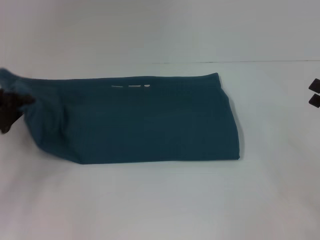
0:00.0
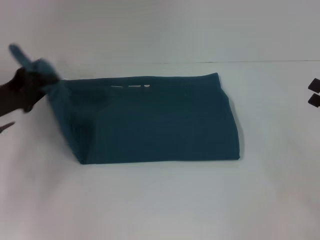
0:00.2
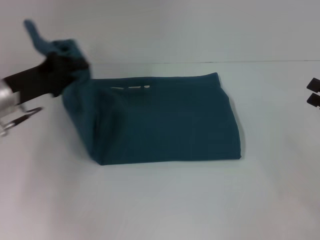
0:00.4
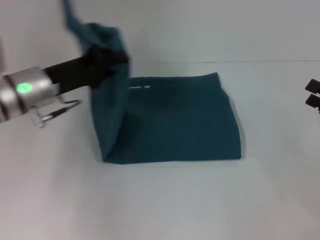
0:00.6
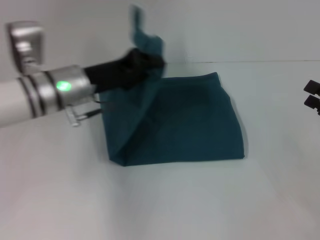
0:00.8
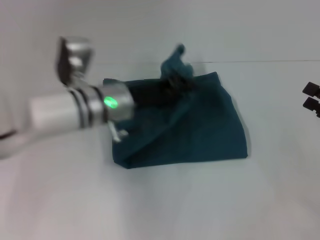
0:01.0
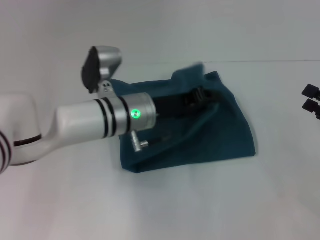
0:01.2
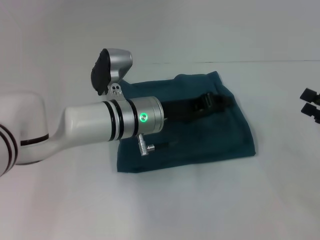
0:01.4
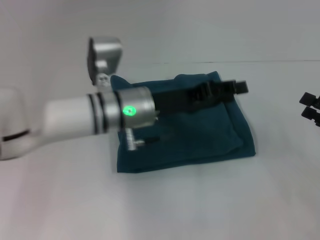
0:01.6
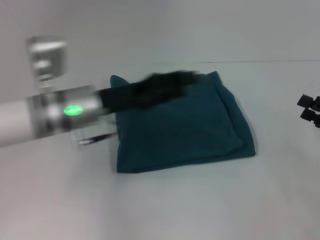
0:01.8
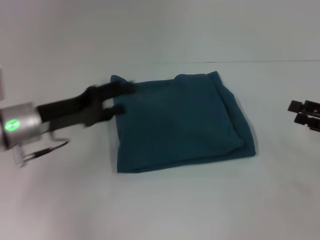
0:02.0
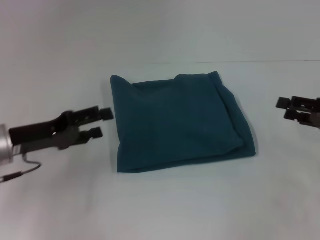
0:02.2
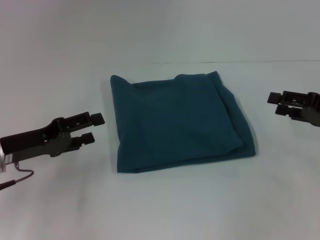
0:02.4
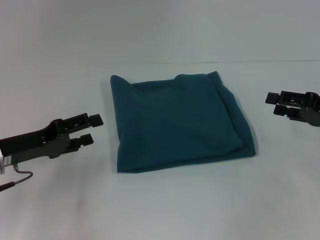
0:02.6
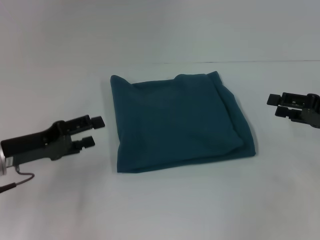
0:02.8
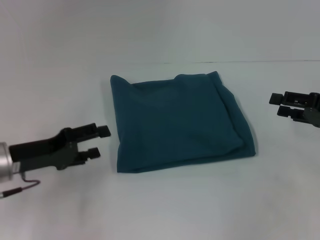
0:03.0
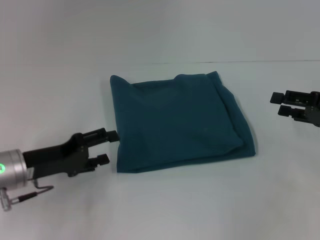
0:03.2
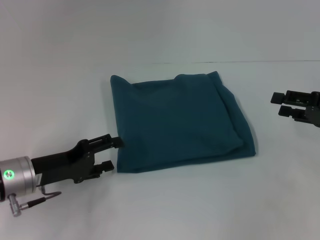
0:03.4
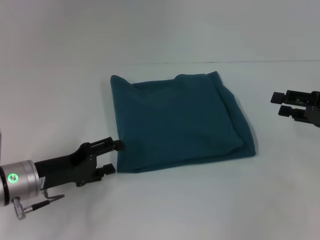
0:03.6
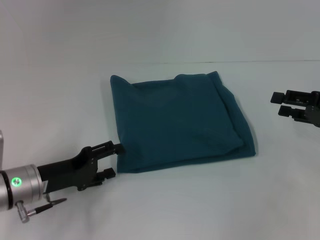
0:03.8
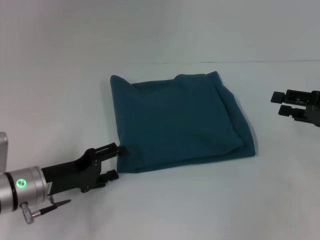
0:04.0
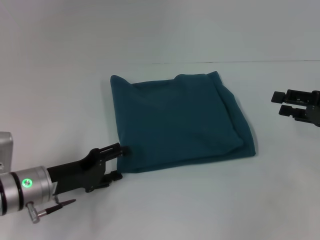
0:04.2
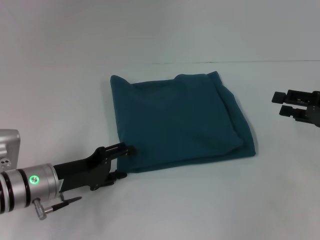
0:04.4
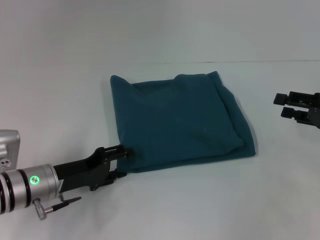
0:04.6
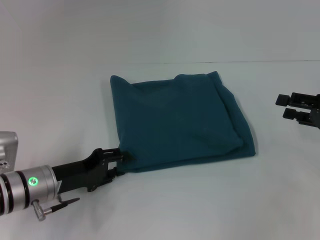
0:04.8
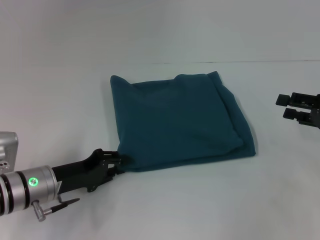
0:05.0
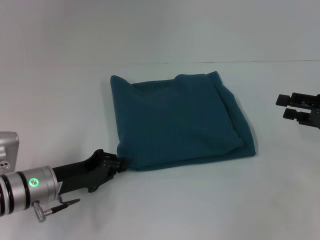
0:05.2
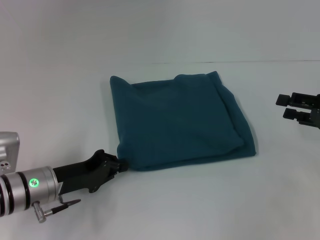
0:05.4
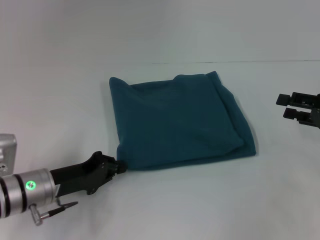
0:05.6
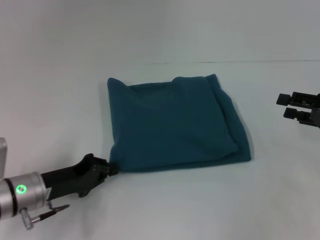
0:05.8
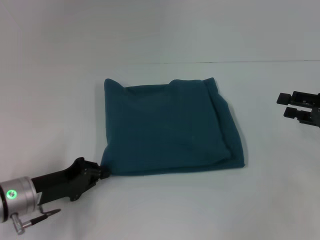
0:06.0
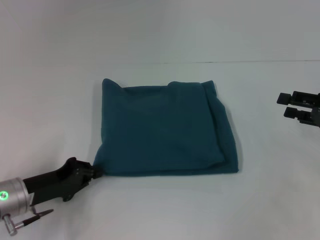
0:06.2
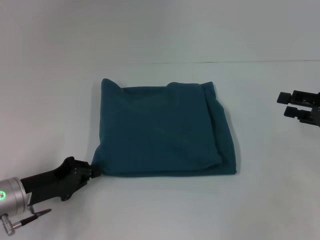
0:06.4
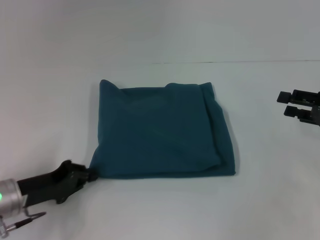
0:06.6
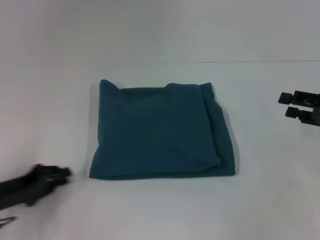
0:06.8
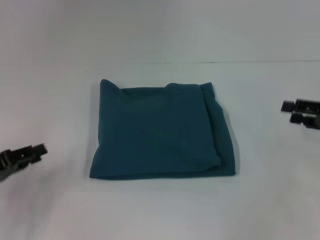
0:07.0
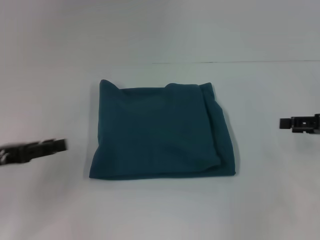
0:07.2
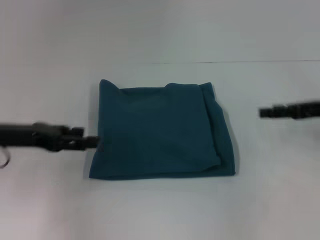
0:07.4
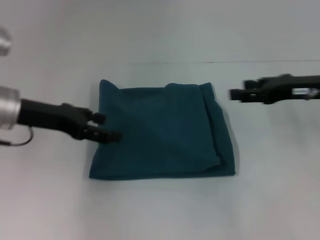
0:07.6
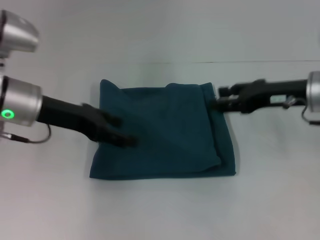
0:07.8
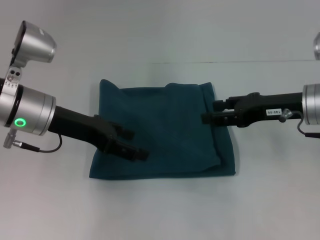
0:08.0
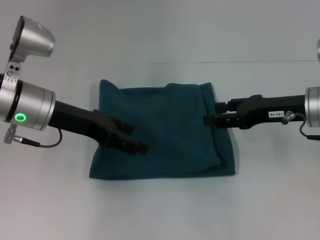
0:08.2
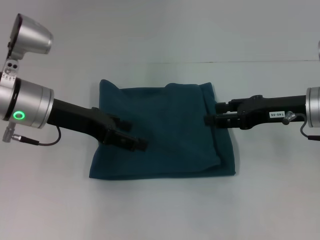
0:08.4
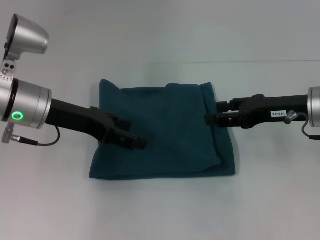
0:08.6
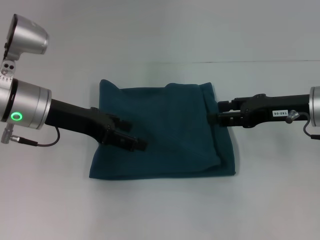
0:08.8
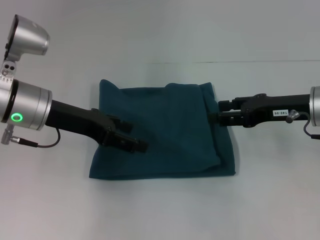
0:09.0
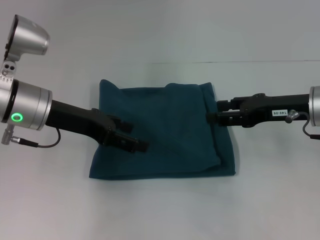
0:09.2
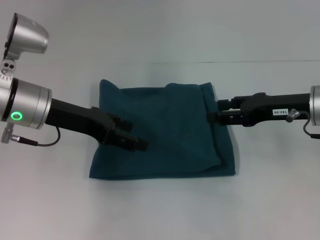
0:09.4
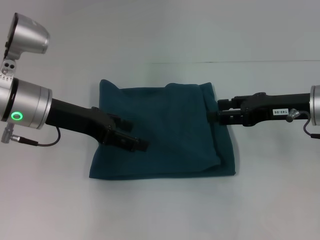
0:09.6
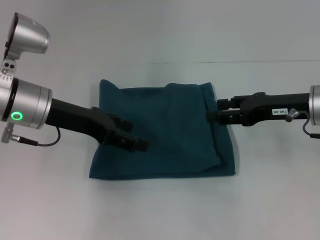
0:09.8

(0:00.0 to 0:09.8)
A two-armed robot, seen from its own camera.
0:00.0 - 0:01.4: The left gripper shifts approximately 25 cm to the right.
0:01.4 - 0:02.8: The left gripper goes about 20 cm to the left, and opens up. The right gripper travels forward by approximately 5 cm.
0:02.8 - 0:04.2: The left gripper goes about 10 cm downward and to the right.
0:04.2 - 0:05.6: The left gripper closes.
0:05.6 - 0:07.0: The left gripper travels to the left by approximately 10 cm.
0:07.0 - 0:08.4: The right gripper goes some 10 cm to the left, while the left gripper shifts about 20 cm to the right, forward and upward, and opens its fingers.
0:08.4 - 0:09.8: Both grippers stay about where they are.

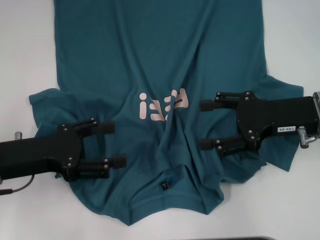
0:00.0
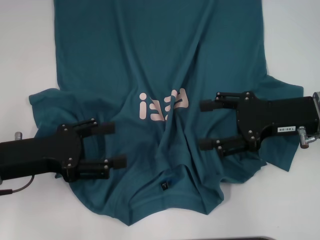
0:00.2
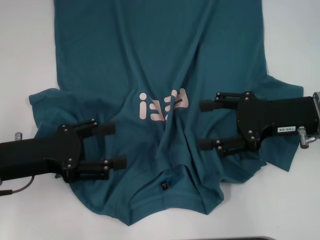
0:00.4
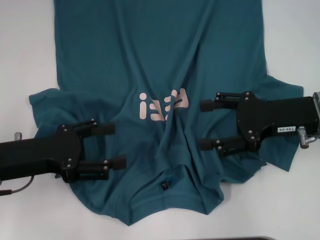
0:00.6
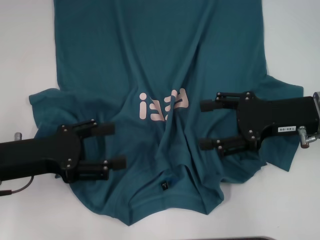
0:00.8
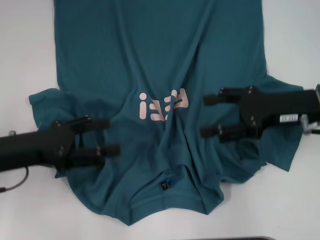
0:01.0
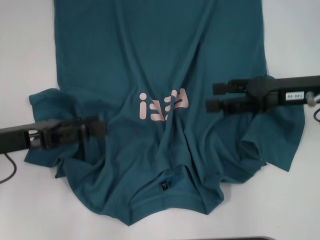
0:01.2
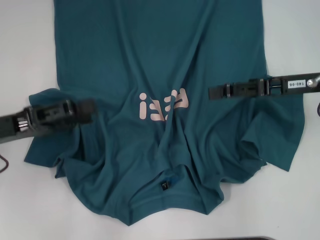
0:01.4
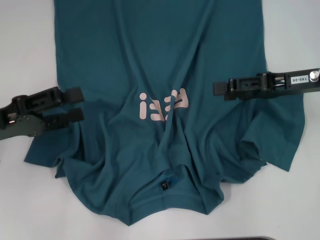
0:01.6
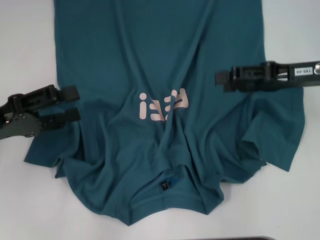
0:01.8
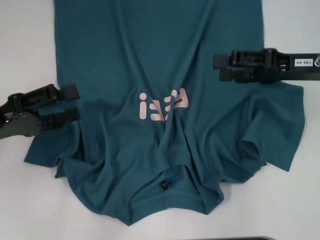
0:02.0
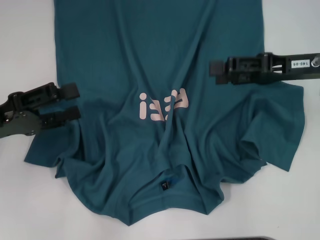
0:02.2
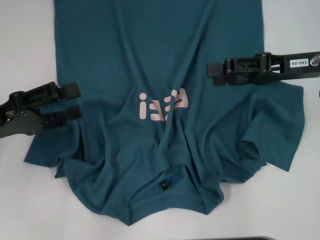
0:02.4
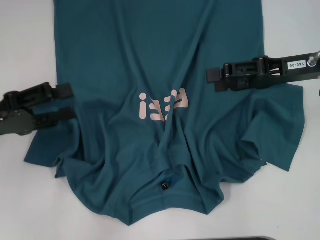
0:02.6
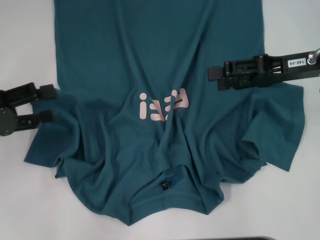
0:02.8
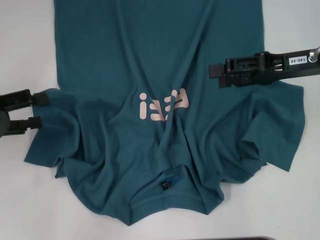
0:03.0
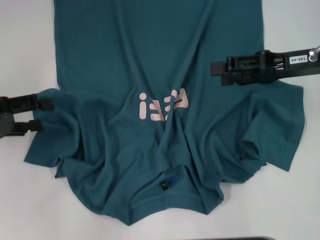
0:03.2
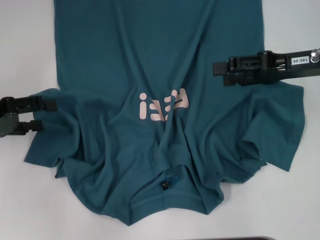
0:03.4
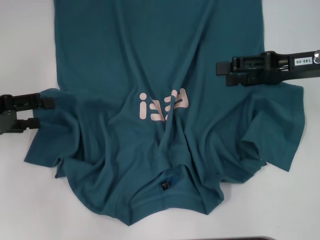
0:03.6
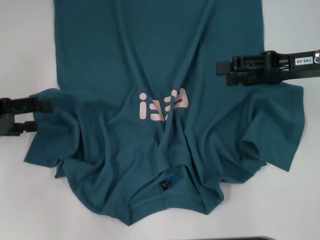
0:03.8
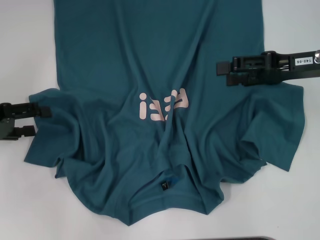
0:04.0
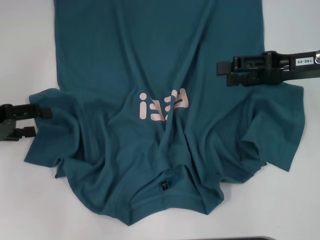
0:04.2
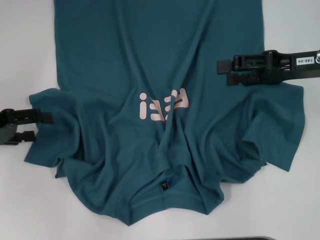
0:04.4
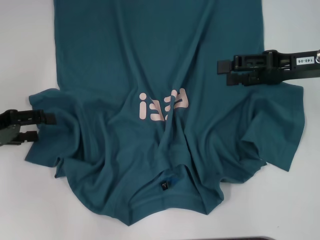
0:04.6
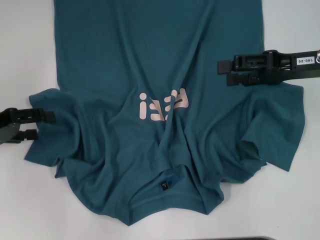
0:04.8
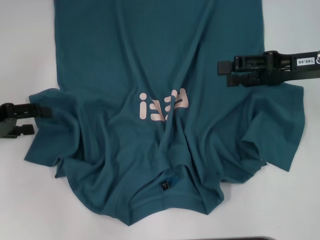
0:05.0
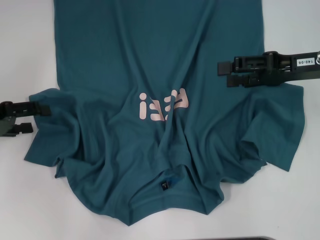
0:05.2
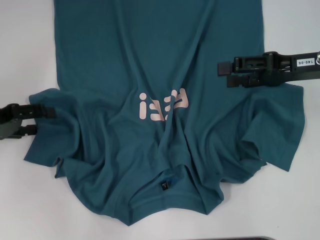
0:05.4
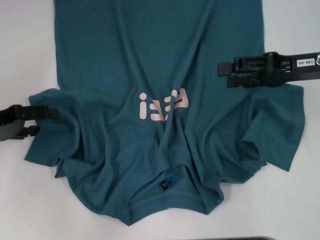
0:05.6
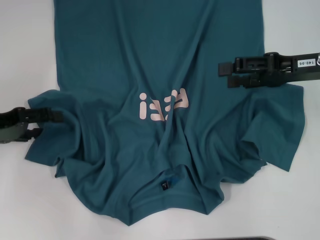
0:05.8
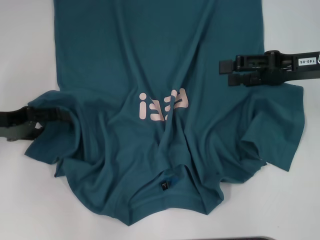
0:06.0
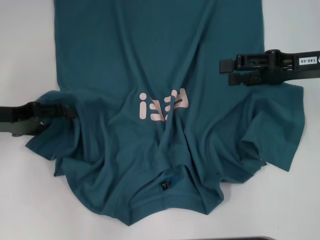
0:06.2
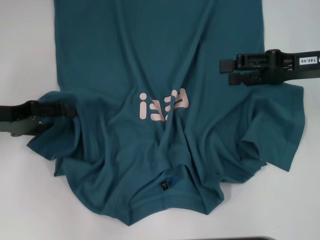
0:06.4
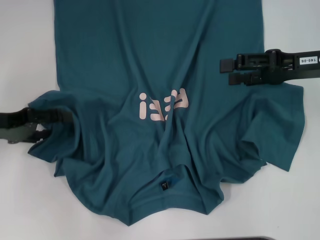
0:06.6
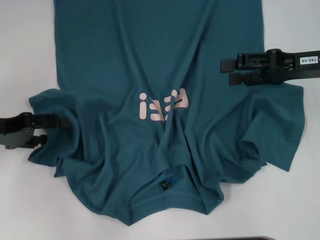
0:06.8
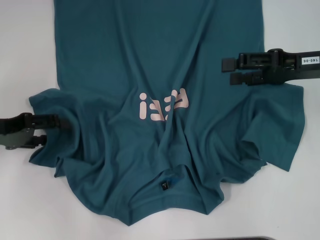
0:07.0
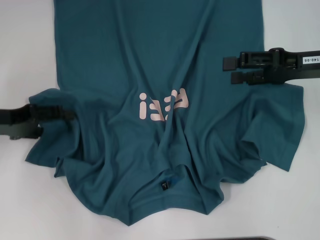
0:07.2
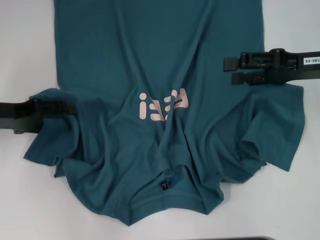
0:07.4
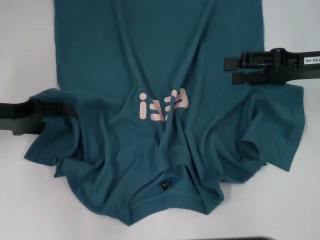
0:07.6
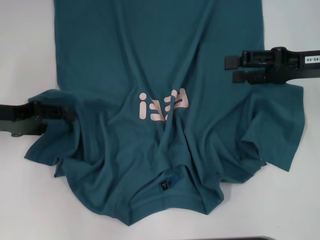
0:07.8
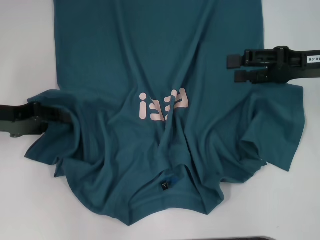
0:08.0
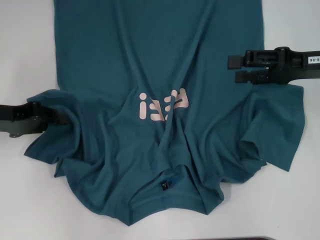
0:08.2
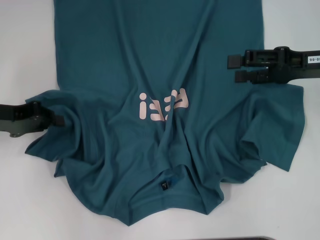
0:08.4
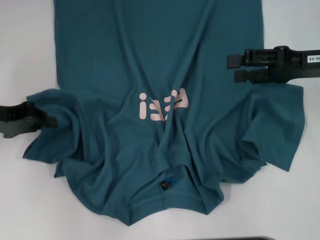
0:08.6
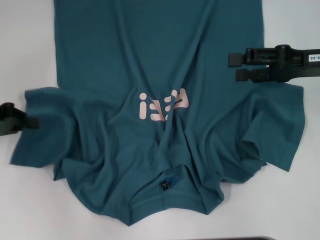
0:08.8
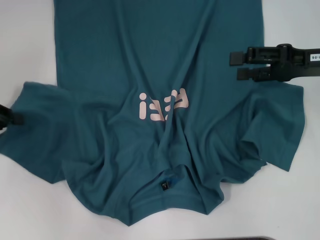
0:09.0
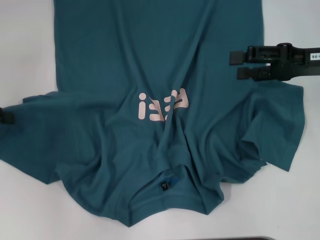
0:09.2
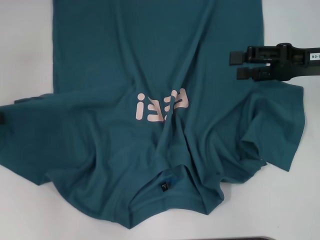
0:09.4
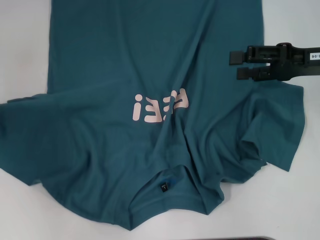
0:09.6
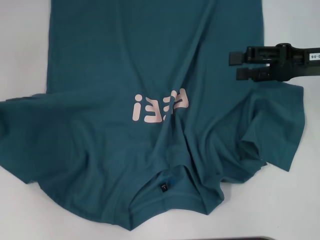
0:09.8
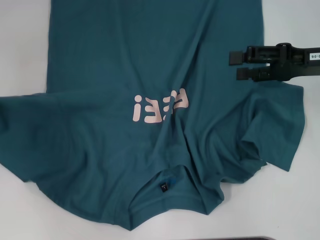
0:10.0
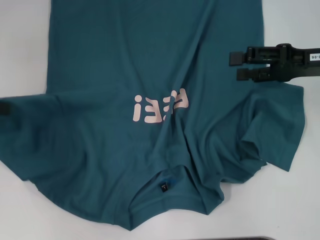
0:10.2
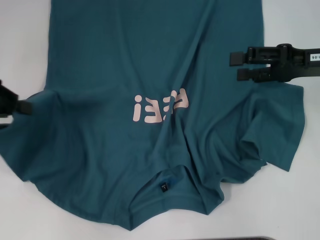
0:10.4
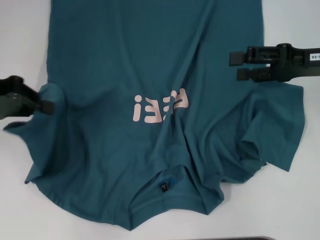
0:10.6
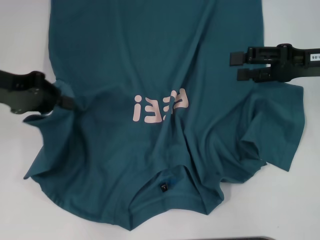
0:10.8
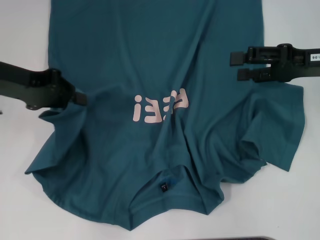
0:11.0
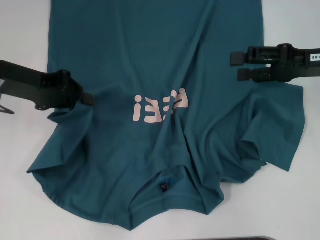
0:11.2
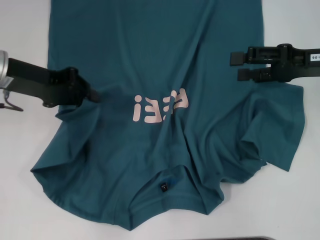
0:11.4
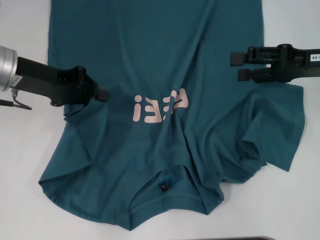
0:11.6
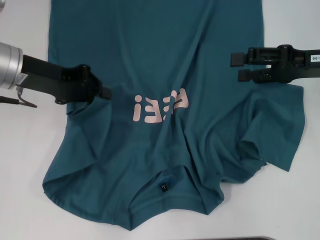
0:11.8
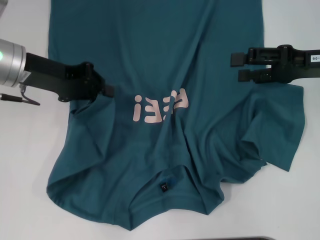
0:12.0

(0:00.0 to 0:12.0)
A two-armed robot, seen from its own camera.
0:00.0 - 0:01.6: The right gripper ends up approximately 5 cm from where it was.
0:01.6 - 0:03.0: The left gripper changes place by about 5 cm.
0:03.0 - 0:07.6: The grippers stay close to where they were, moving slightly.
0:07.6 - 0:09.0: The left gripper goes about 5 cm to the left, and closes.
0:09.0 - 0:10.4: The left gripper shifts approximately 5 cm upward.
0:10.4 - 0:12.0: The left gripper shifts about 10 cm to the right.

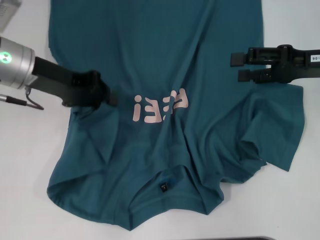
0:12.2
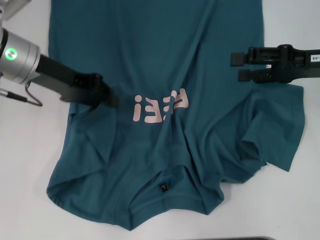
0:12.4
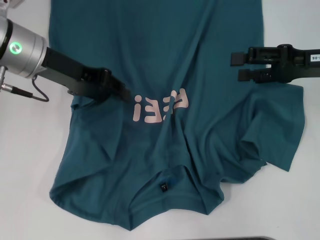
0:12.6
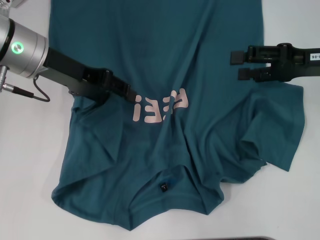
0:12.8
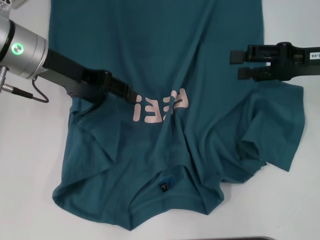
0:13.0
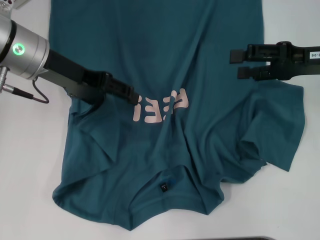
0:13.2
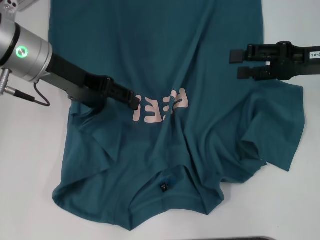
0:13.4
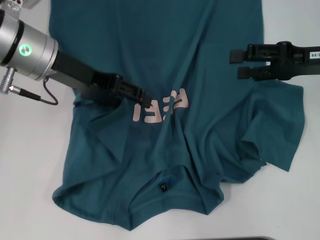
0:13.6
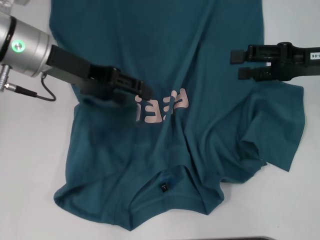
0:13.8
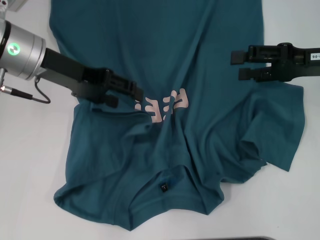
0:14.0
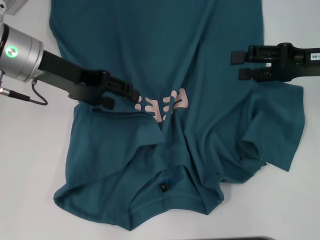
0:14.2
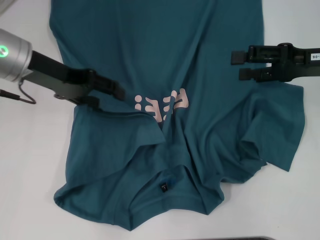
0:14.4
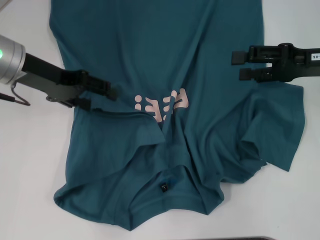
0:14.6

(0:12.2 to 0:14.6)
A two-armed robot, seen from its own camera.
0:12.2 - 0:13.4: The left gripper opens up.
0:13.4 - 0:14.6: There are only small adjustments of the grippers.
